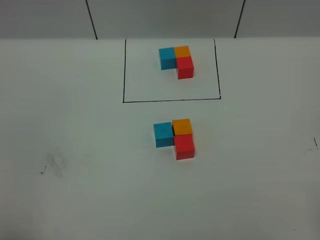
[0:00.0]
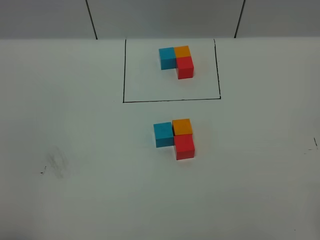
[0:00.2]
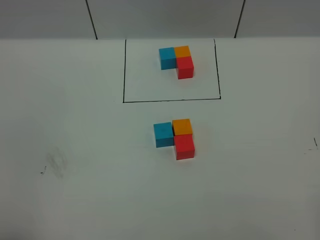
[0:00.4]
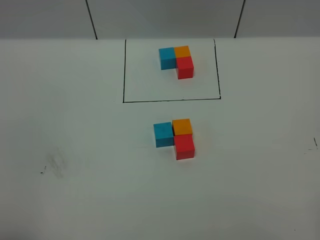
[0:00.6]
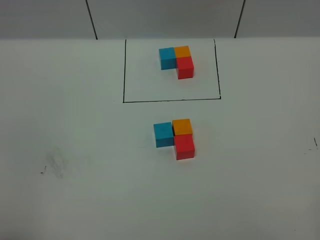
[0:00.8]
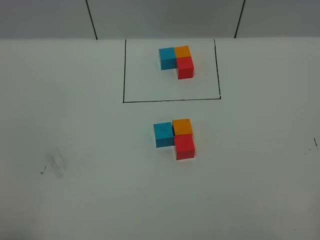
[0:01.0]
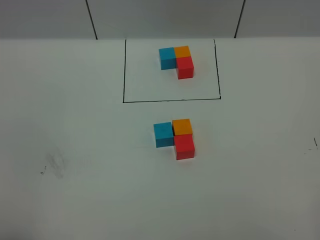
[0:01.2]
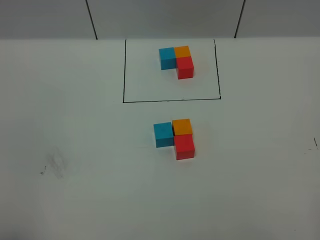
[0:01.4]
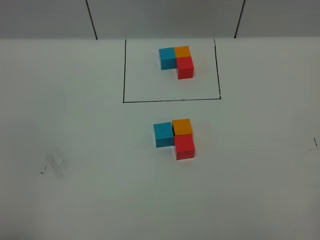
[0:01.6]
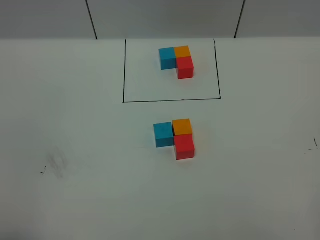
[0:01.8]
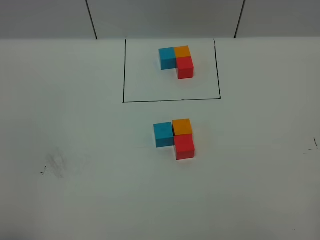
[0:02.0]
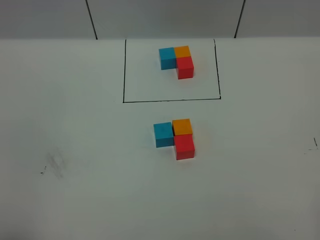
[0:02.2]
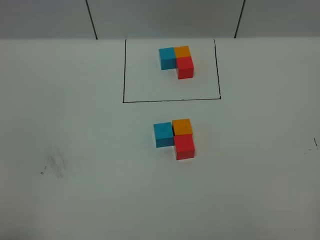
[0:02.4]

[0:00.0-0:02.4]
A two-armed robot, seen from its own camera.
Task of the whole recording: According to the building block template in front, assemble the scattered blocks together.
0:01.2 to 0:02.4: Neither gripper changes place.

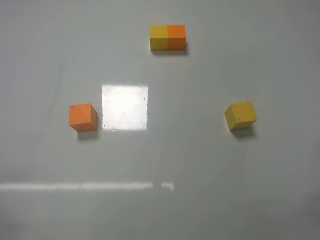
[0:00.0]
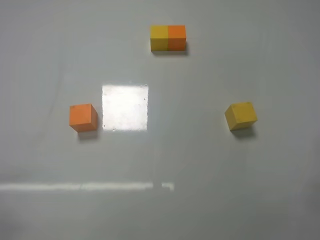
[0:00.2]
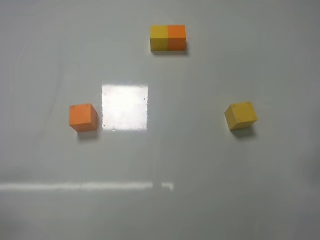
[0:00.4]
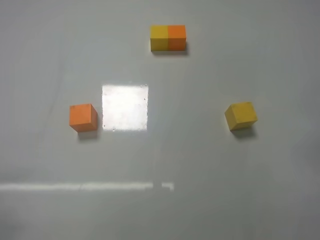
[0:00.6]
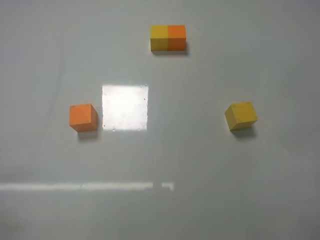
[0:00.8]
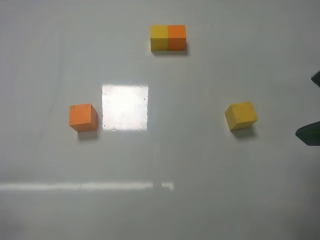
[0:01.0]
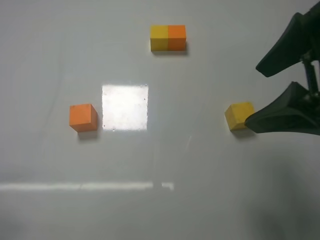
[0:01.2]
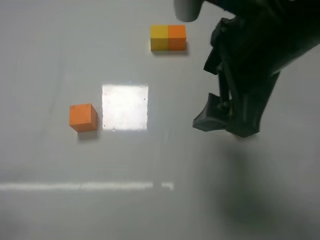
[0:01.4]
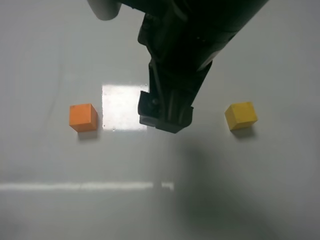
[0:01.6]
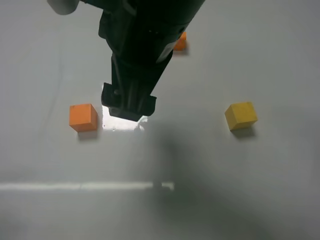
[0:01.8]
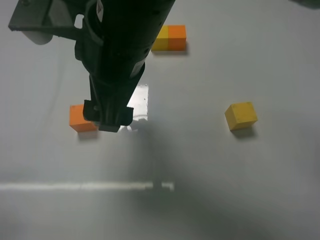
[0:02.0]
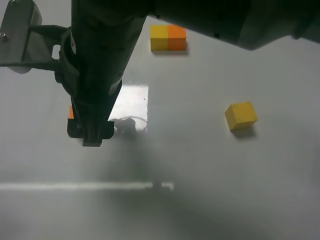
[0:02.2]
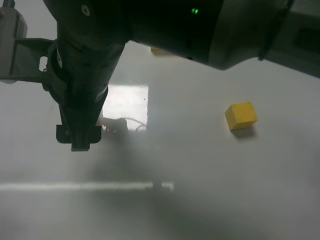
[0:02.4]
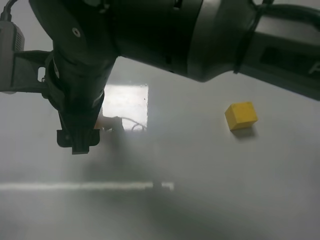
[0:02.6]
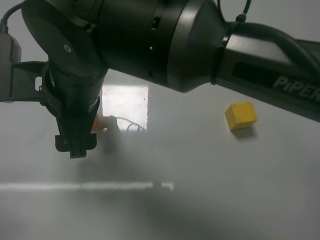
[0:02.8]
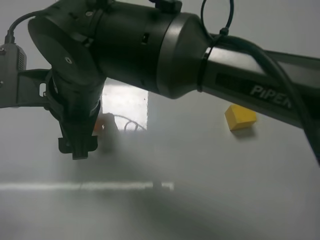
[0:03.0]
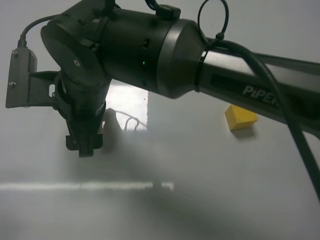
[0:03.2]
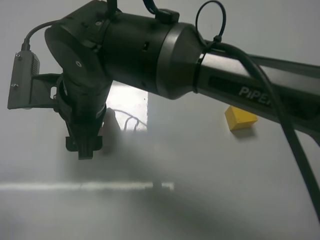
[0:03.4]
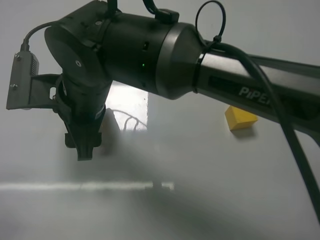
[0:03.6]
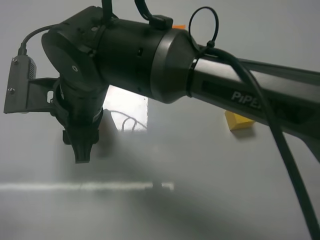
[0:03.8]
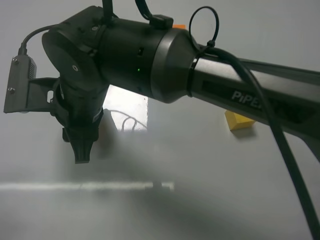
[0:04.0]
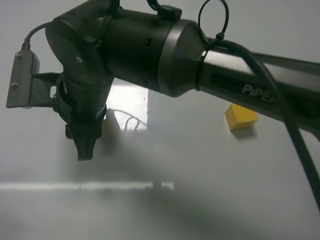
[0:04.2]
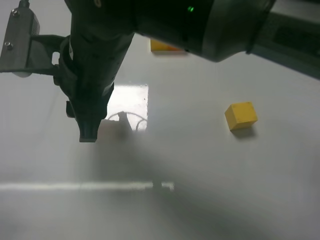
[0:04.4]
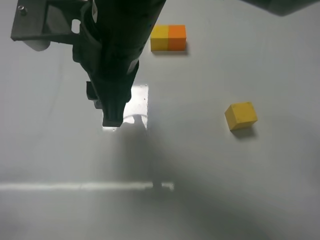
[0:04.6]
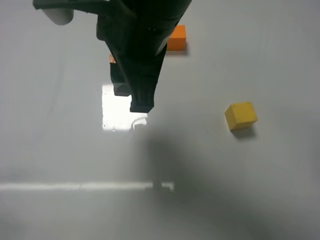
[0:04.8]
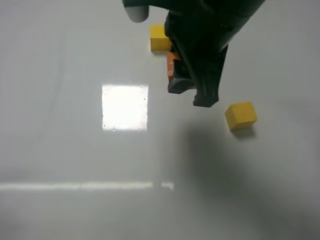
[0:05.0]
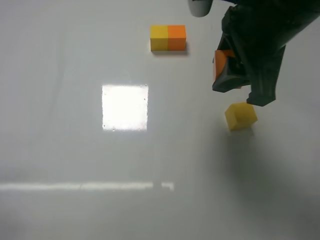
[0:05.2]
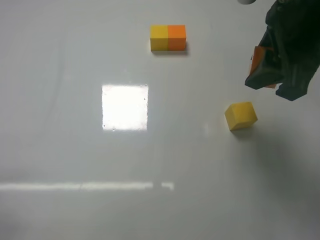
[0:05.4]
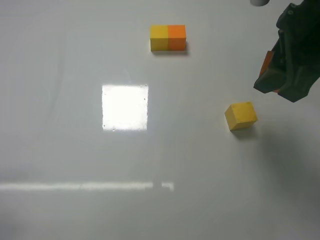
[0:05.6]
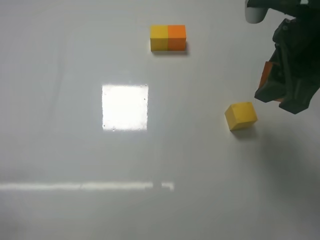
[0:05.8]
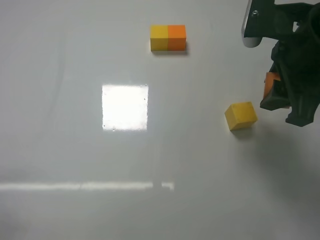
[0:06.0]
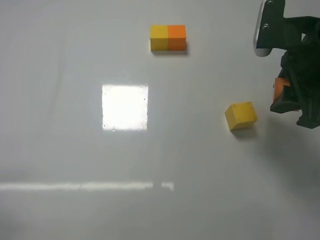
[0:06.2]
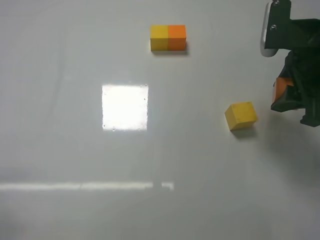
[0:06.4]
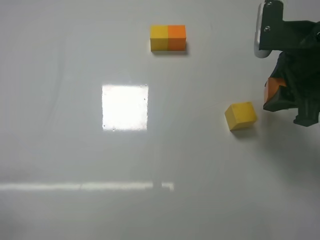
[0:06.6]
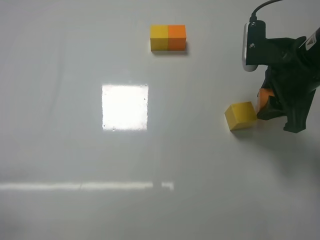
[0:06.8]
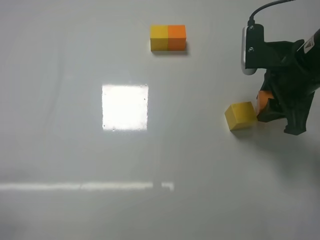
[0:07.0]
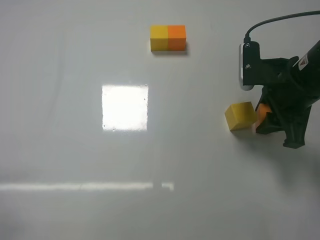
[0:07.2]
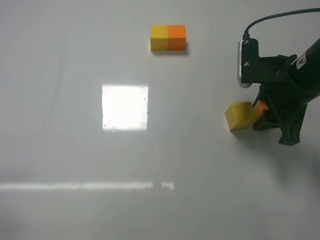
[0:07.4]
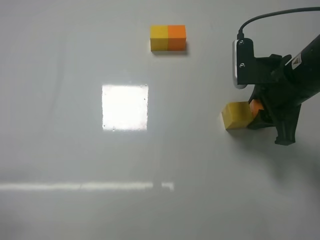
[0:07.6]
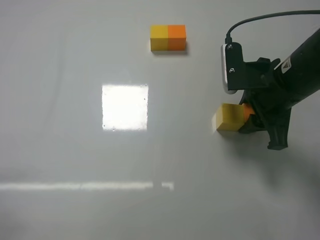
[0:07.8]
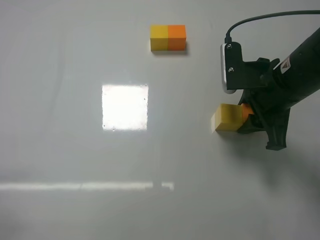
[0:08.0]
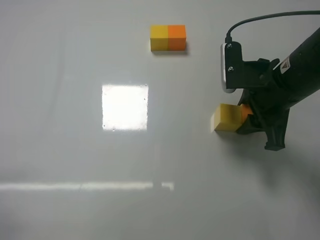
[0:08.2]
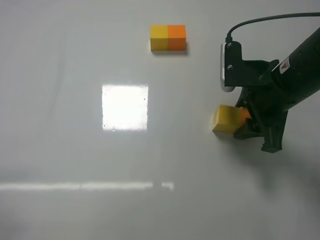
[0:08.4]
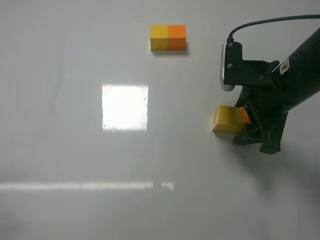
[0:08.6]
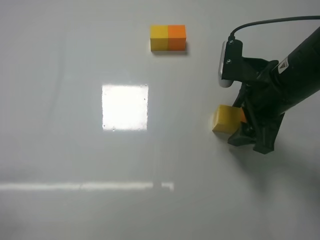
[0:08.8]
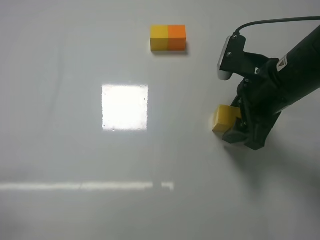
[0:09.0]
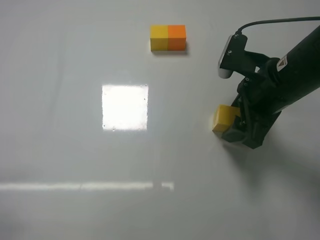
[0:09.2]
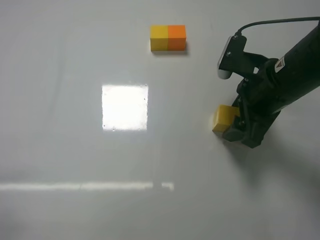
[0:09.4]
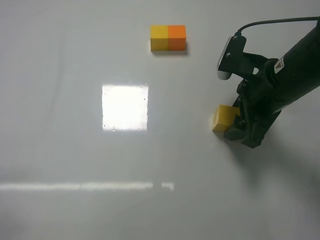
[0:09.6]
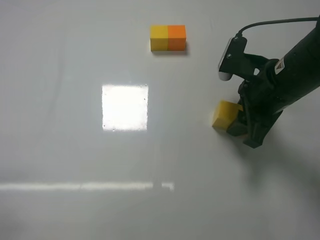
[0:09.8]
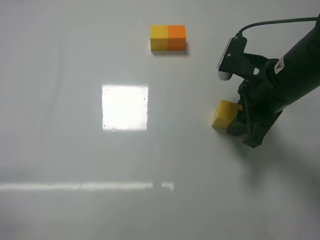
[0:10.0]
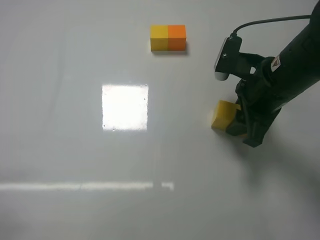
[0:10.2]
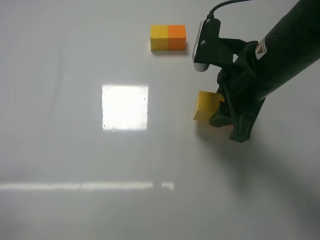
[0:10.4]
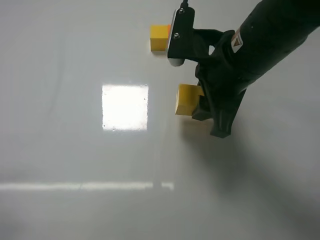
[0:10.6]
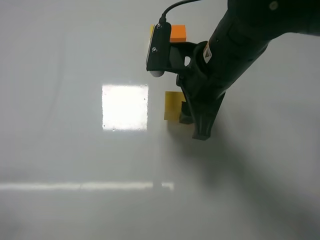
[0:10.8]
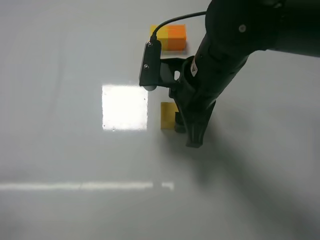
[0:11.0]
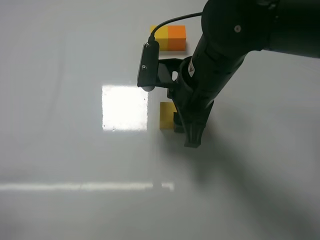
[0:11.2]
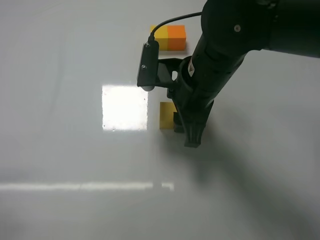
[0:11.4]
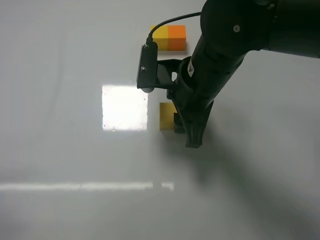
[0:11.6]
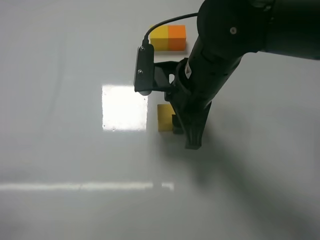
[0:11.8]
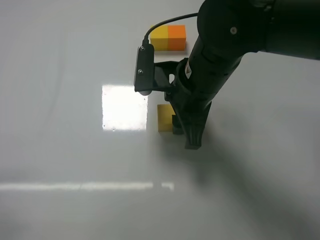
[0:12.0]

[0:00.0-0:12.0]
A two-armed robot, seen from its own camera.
Task of the whole recording: According to the building block template in front, assemble the scattered blocks together.
Step, 0:00.0 to 0:04.0: Grasp the orange block with right gripper.
Step, 0:04.2 to 0:09.0: Put the orange cube on the right of the yellow cube with the right gripper.
0:00.0 to 0:01.6: The right gripper shifts about 35 cm to the left, forward and upward.
0:01.6 to 0:03.0: The right gripper shifts about 15 cm to the left, downward and forward.
0:03.0 to 0:04.4: The right gripper moves roughly 5 cm, and closes.
0:04.4 to 0:06.0: The right gripper moves to the right, some 25 cm.
0:06.0 to 0:07.6: The right gripper heads downward, covering approximately 5 cm.
0:07.6 to 0:09.0: The right gripper opens its fingers.
0:09.0 to 0:10.4: The right gripper changes place by about 5 cm, and closes.
0:10.4 to 0:12.0: The right gripper moves to the left, some 5 cm.

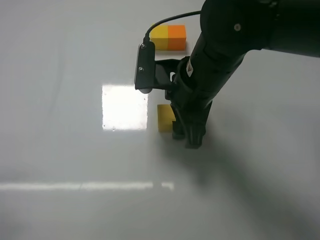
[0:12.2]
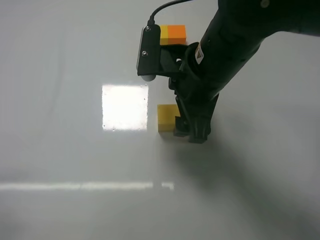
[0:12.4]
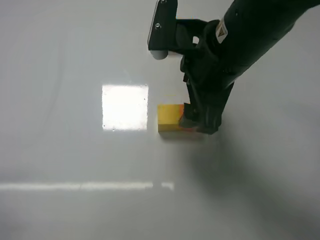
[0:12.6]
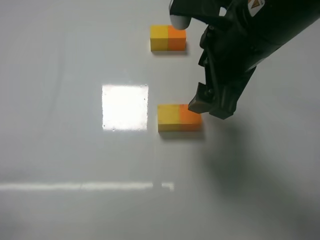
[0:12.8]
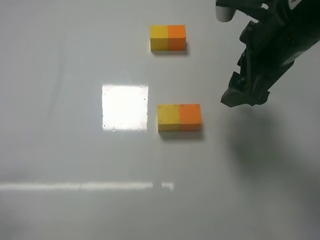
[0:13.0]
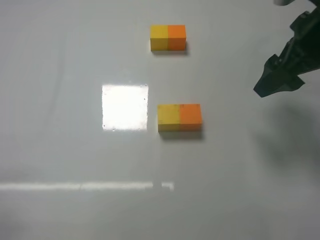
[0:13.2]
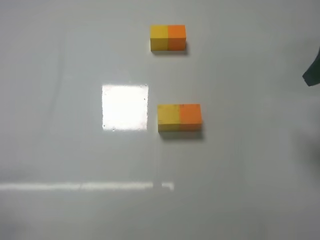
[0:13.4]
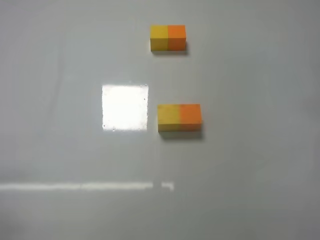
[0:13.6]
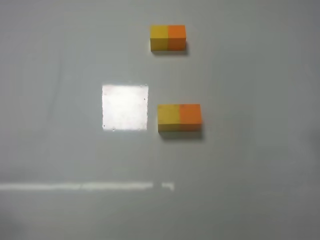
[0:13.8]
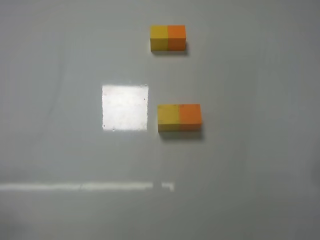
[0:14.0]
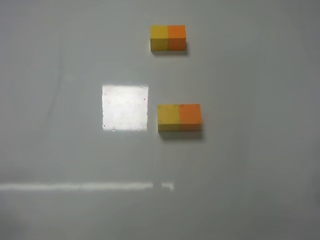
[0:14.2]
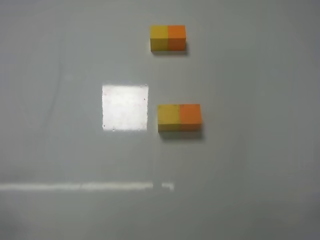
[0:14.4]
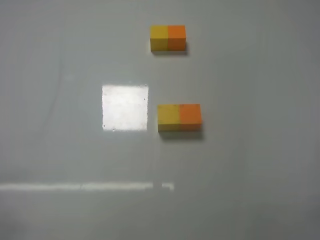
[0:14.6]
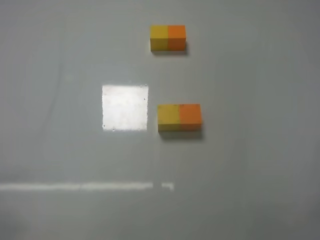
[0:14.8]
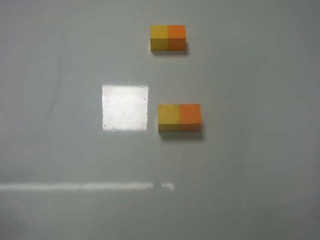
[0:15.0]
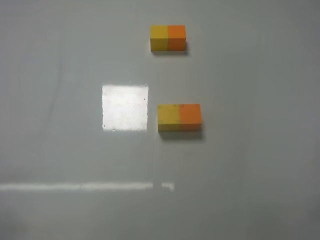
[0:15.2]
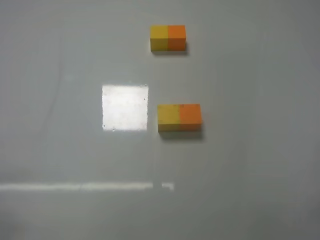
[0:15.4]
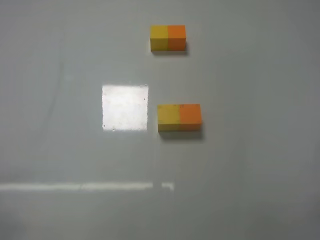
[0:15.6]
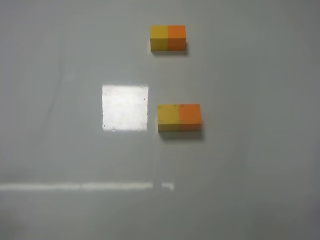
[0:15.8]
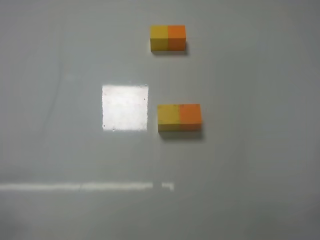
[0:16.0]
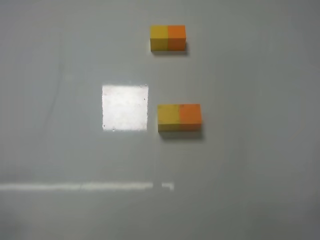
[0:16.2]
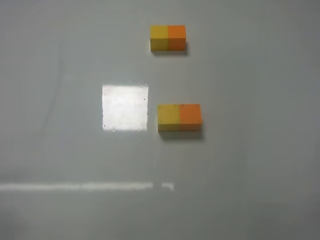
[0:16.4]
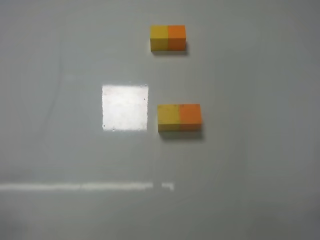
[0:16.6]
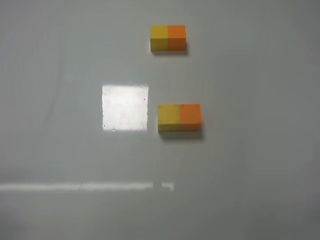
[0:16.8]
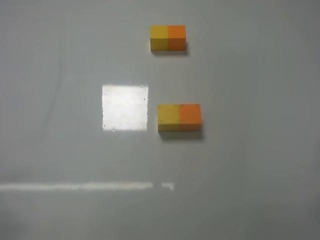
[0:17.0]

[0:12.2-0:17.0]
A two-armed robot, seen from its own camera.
Task of the whole recording: According to the building block template in front, assemble the scattered blocks together.
0:12.2 to 0:13.8: The right gripper heads to the right and backward, covering about 30 cm.
0:15.4 to 0:17.0: The two grippers keep their place.
